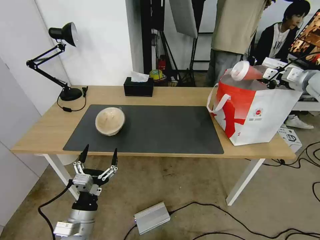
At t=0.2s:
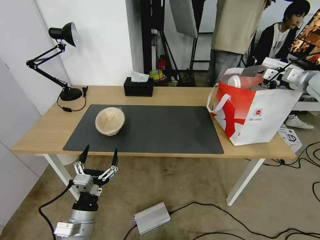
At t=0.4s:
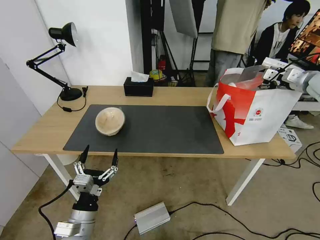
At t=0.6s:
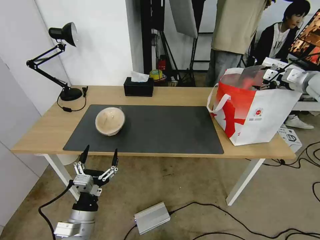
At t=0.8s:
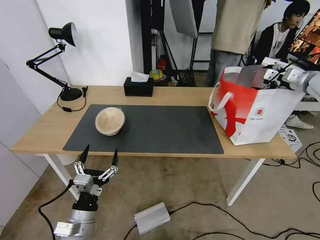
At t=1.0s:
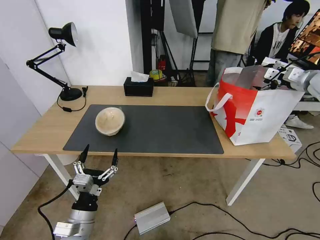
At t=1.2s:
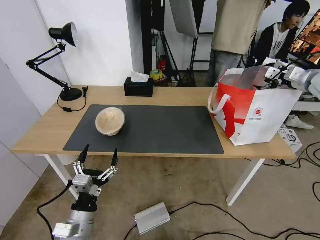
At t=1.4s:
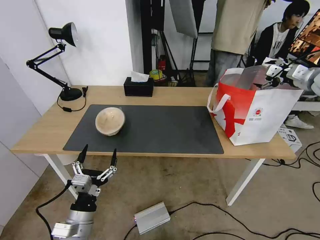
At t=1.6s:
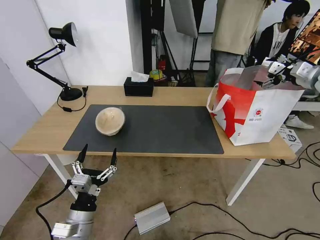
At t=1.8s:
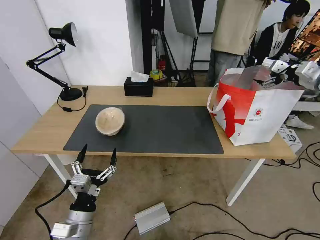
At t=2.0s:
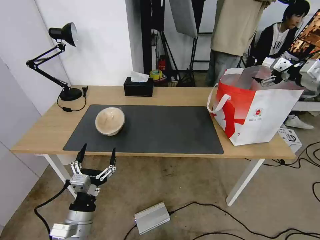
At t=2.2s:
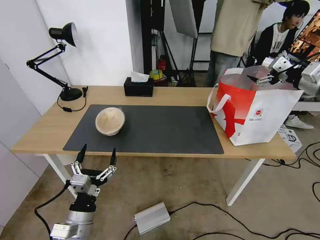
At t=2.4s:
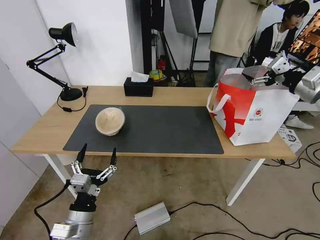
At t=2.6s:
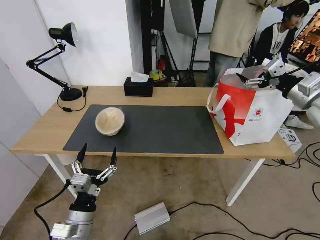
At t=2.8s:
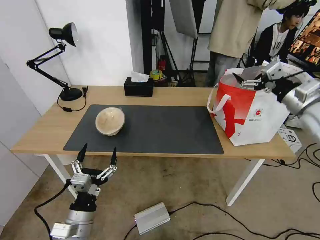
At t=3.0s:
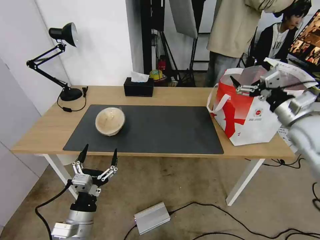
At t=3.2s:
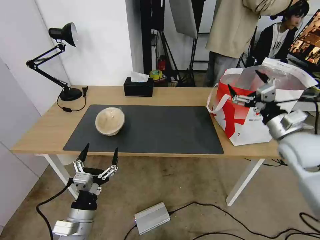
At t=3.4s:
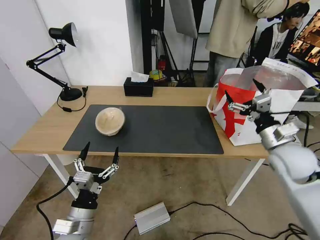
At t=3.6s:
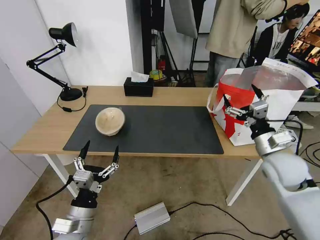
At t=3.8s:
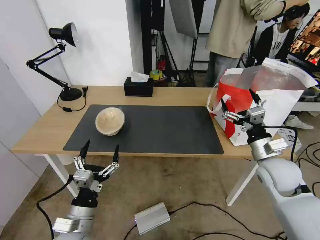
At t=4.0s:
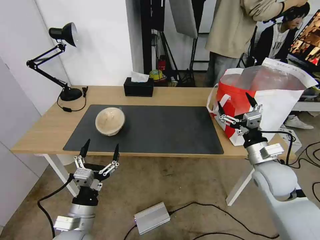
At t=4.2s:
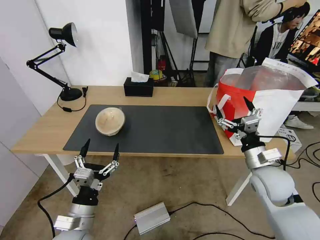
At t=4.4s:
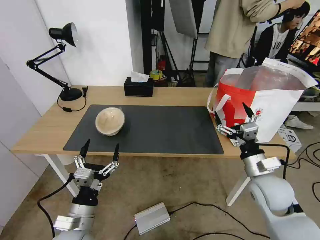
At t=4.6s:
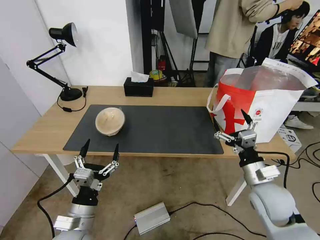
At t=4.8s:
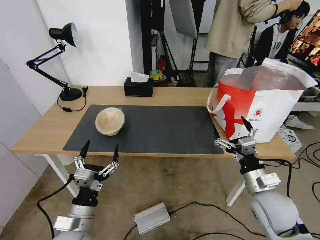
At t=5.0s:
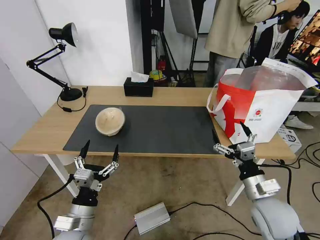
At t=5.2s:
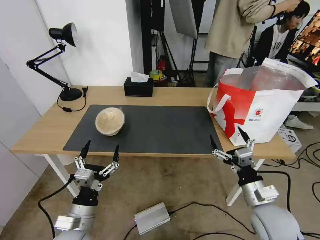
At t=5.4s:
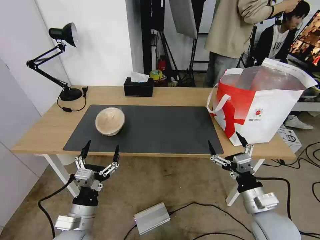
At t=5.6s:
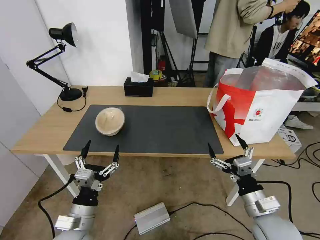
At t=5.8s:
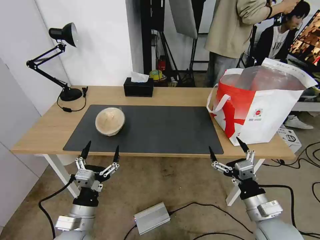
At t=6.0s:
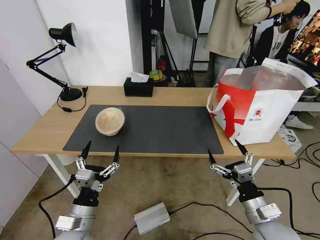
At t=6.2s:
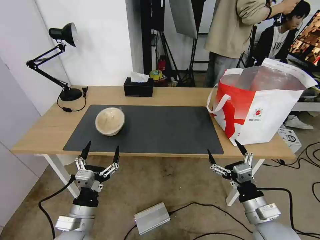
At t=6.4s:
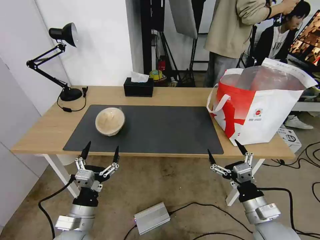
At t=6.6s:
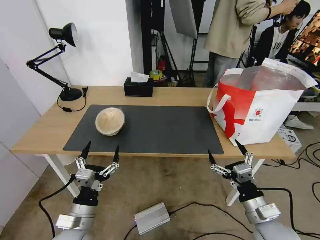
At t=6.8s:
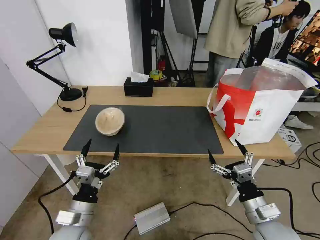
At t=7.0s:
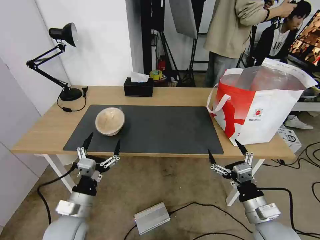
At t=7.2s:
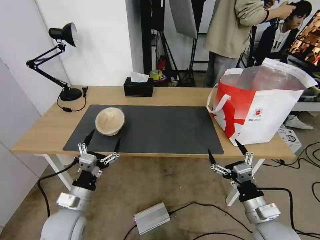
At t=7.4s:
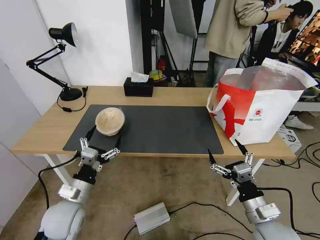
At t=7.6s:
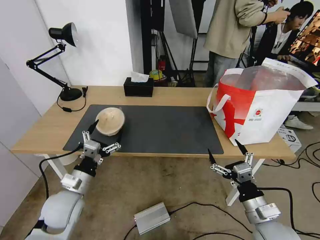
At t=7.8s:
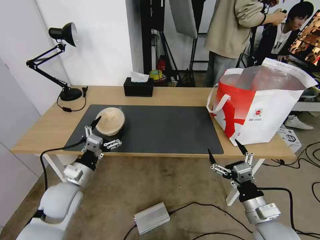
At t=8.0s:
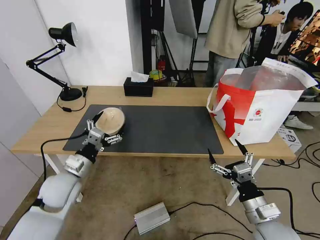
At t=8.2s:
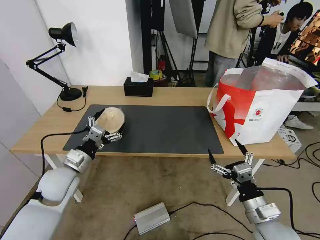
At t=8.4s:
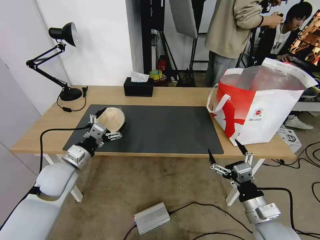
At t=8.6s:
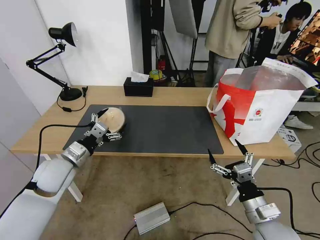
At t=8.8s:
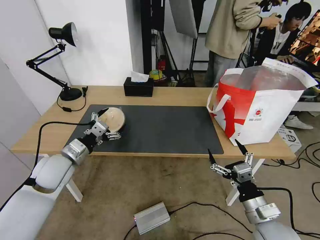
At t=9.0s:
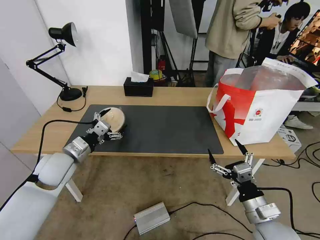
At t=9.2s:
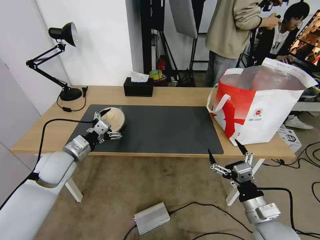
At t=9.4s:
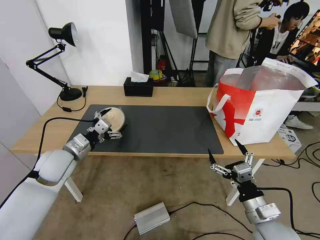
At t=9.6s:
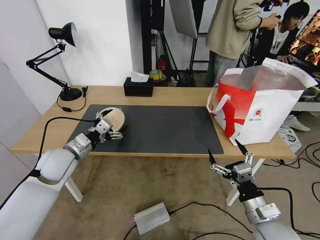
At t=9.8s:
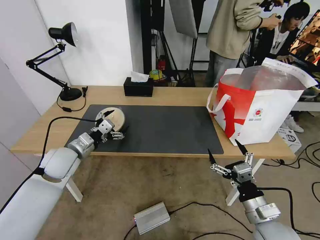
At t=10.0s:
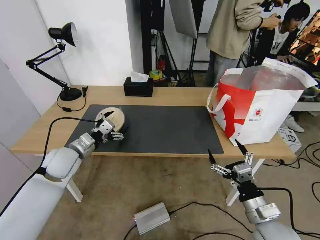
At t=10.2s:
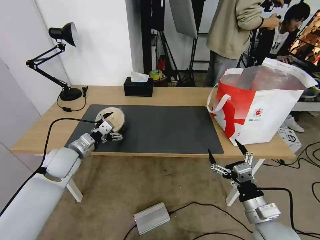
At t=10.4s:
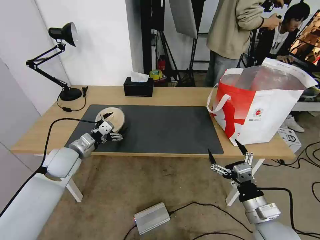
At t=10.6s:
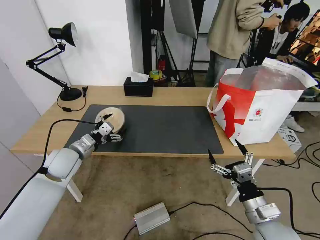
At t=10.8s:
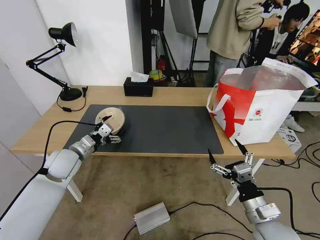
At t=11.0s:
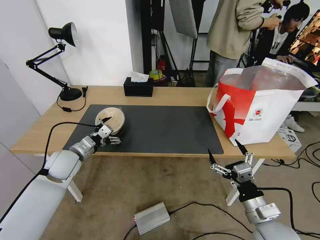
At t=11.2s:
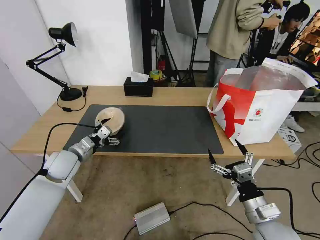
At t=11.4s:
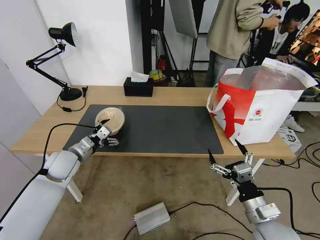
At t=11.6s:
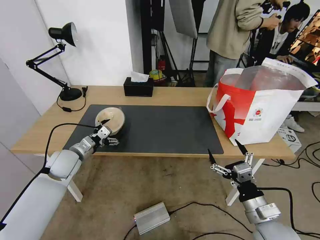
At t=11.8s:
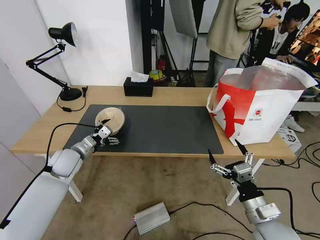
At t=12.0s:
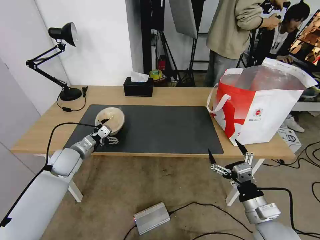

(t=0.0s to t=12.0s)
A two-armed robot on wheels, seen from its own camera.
Task of the whole recording: Pick up the trash from the table and place it into the takeout bag.
t=0.0s - t=1.6s: The right gripper opens up.
t=1.6s - t=3.0s: The right gripper shifts some 20 cm backward, to the left and downward.
t=3.0s - t=4.4s: The right gripper travels downward, backward and to the left by approximately 20 cm.
t=4.4s - t=6.0s: The right gripper is displaced backward by about 10 cm.
t=6.0s - t=7.6s: The left gripper is displaced forward by roughly 10 cm.
t=7.6s - t=9.0s: The left gripper moves forward and upward, roughly 10 cm.
t=9.0s - t=10.4s: The grippers make only small movements.
t=10.4s - t=12.0s: The left gripper moves approximately 5 cm.

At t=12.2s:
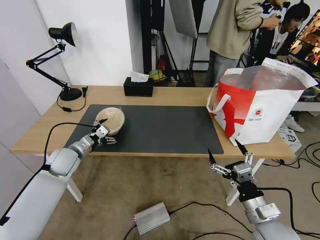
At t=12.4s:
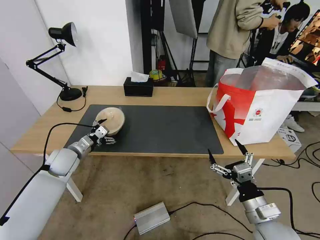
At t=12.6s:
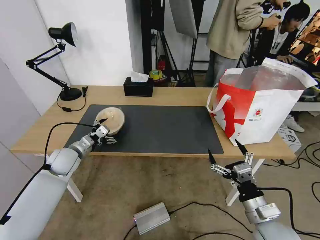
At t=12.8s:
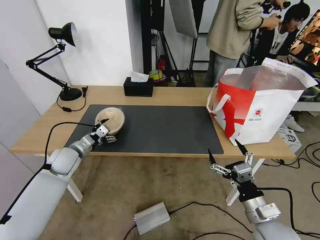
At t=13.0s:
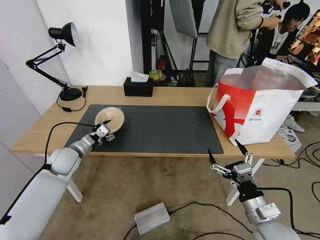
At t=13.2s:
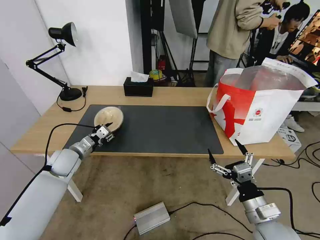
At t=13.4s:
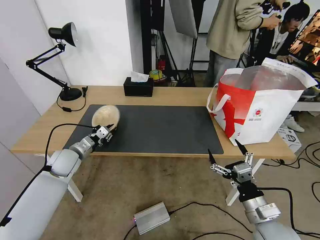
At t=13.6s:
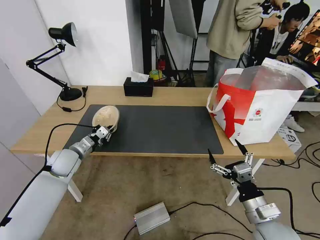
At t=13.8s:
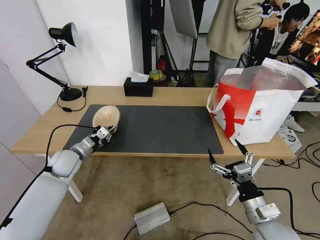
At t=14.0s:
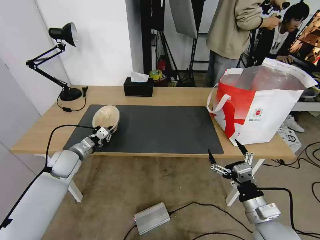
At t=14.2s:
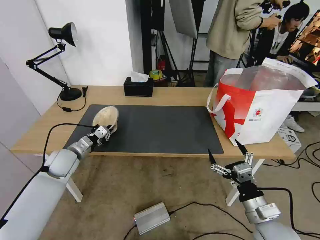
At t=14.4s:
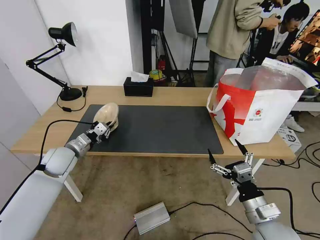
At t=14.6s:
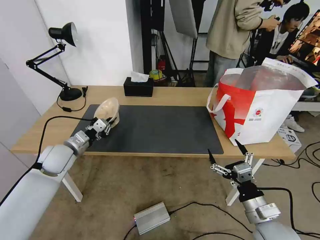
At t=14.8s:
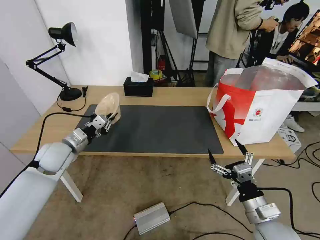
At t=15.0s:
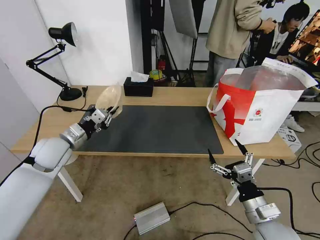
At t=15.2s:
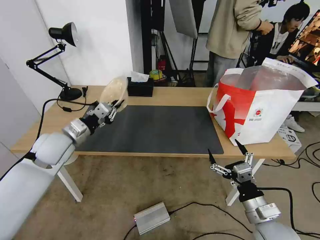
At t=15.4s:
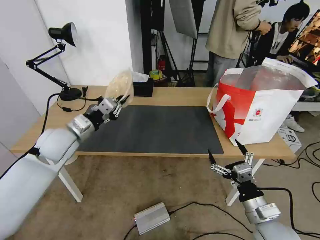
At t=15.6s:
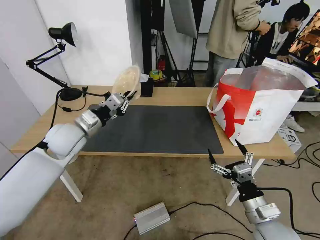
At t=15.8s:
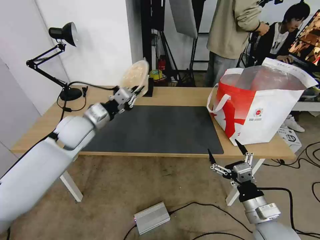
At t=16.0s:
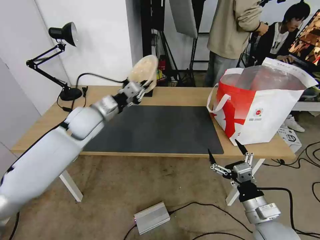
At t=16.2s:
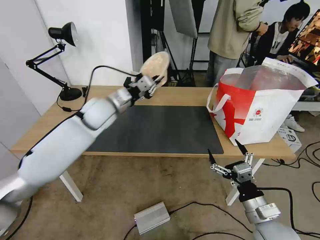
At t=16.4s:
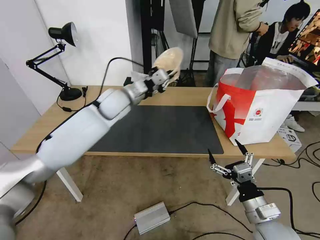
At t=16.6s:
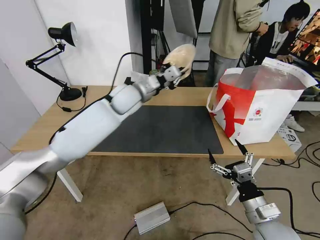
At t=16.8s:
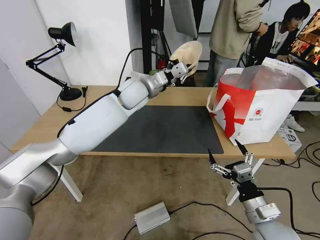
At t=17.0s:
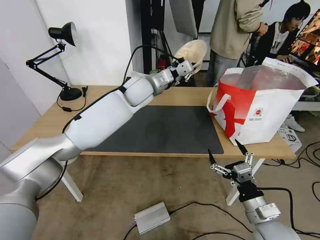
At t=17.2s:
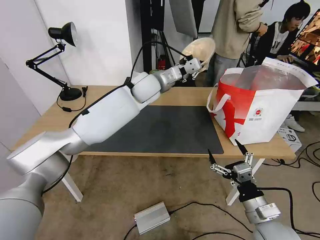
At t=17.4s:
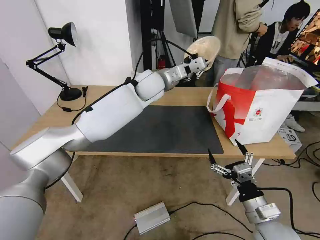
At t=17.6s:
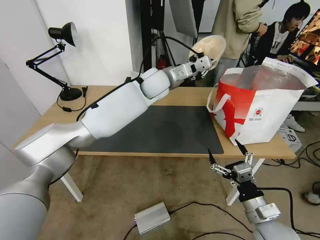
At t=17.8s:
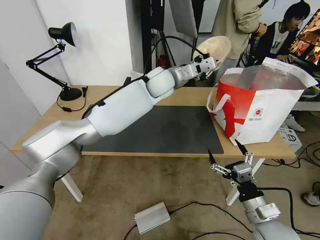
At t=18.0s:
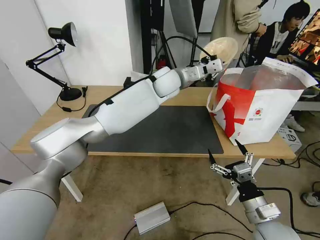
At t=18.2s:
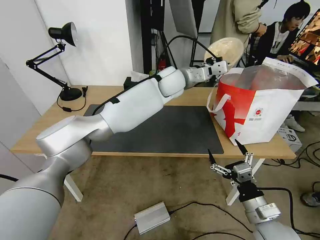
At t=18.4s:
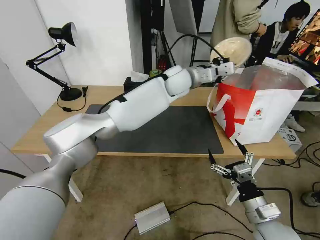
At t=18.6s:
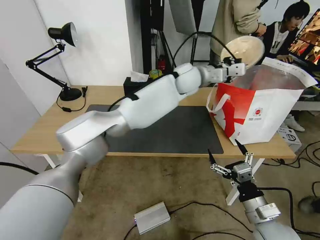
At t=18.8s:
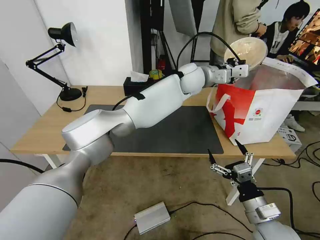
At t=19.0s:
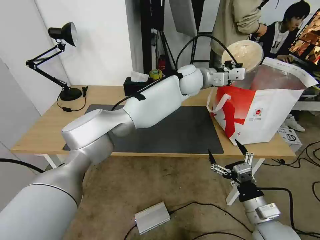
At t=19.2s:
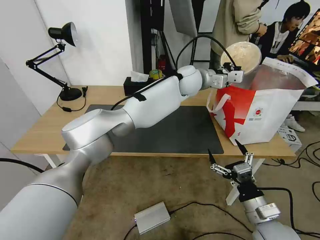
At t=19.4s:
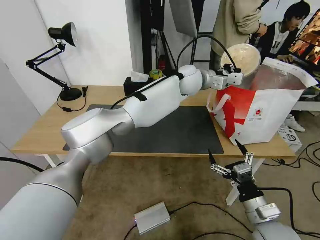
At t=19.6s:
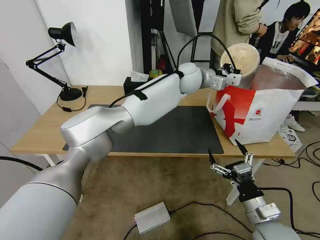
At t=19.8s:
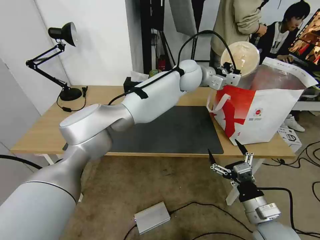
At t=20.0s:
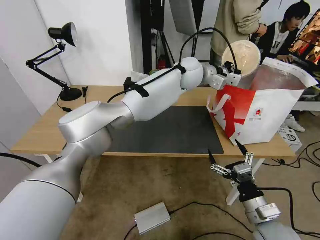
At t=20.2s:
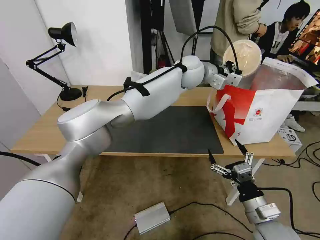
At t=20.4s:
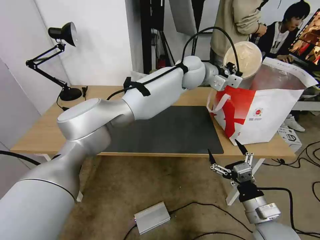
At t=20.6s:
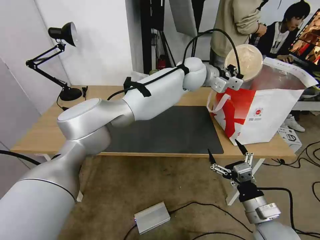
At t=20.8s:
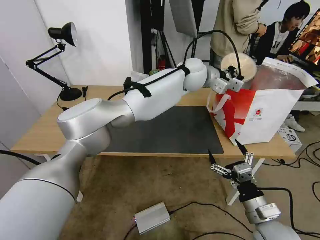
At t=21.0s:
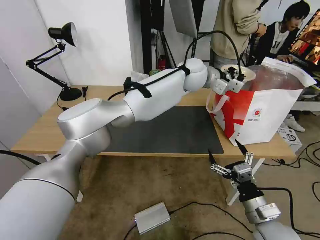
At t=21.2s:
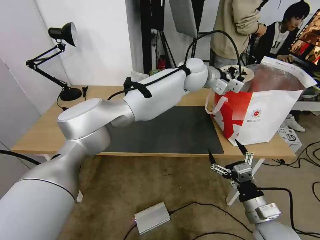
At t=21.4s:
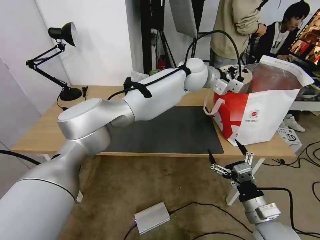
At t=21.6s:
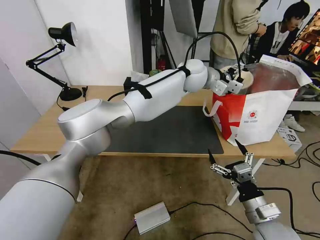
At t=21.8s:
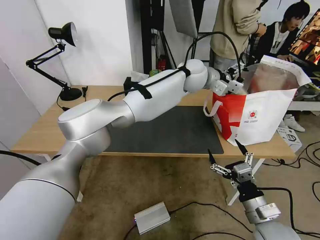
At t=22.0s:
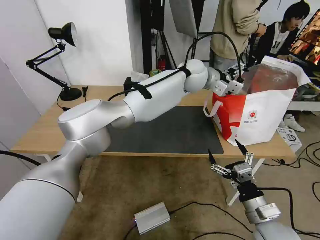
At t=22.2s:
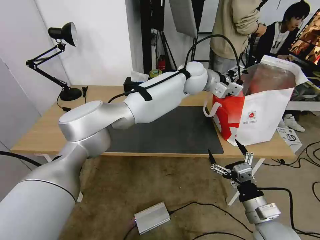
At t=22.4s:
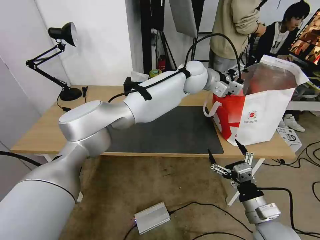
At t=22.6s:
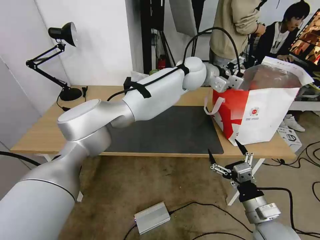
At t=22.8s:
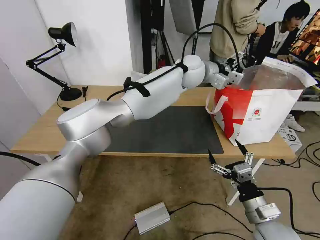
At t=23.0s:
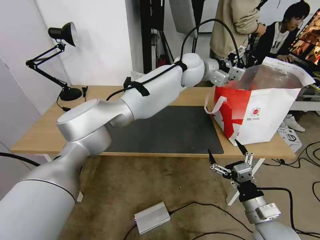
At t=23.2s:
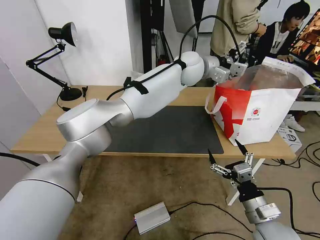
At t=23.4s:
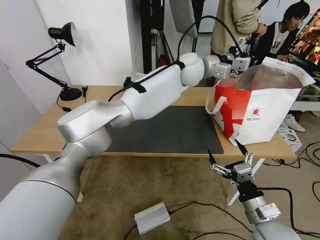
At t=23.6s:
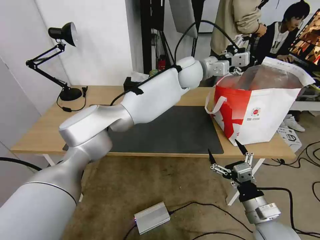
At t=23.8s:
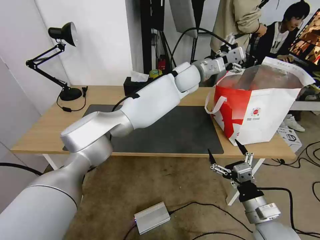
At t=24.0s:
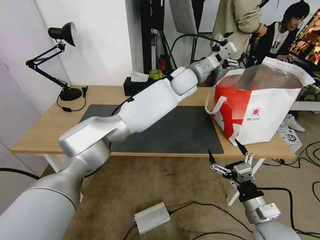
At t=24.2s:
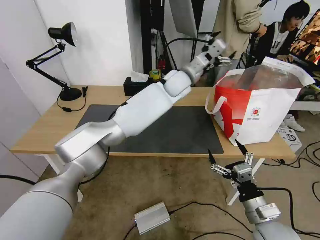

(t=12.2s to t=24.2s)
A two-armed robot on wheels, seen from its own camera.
Task of the whole recording: Pick up the trash from the table and place it into the takeout bag.
t=12.2s - t=13.8s: The left gripper closes up.
t=13.8s - t=15.2s: The left gripper shifts roughly 10 cm upward.
t=15.2s - t=16.6s: The left gripper travels to the right and forward by roughly 25 cm.
t=16.6s - t=18.2s: The left gripper travels to the right by roughly 15 cm.
t=18.2s - t=19.8s: The left gripper travels to the right by approximately 5 cm.
t=19.8s - t=21.2s: The left gripper opens its fingers.
t=21.2s - t=22.6s: The left gripper opens up.
t=22.6s - t=24.2s: The left gripper changes place by approximately 5 cm.
